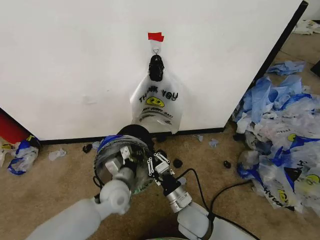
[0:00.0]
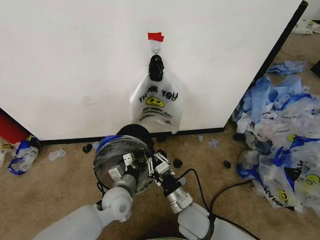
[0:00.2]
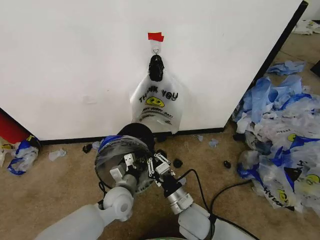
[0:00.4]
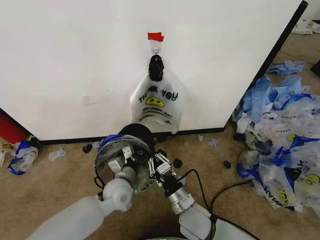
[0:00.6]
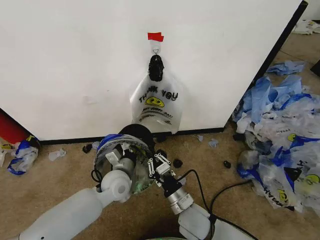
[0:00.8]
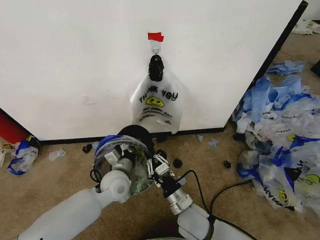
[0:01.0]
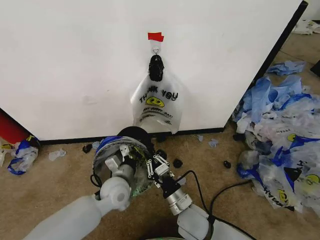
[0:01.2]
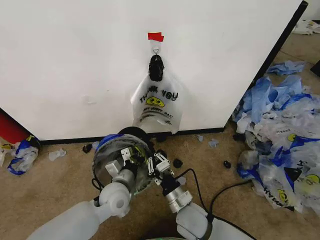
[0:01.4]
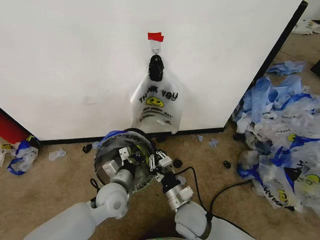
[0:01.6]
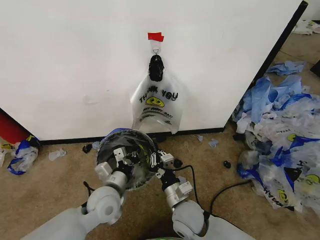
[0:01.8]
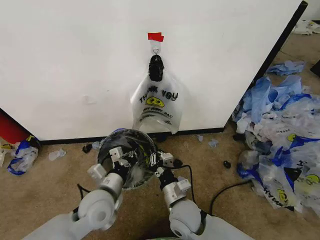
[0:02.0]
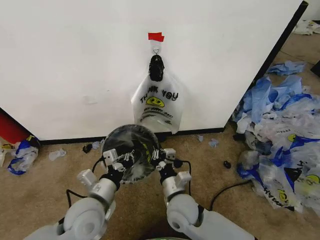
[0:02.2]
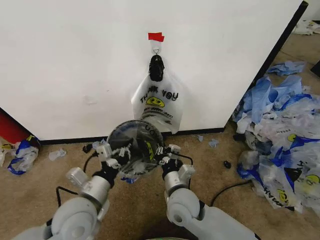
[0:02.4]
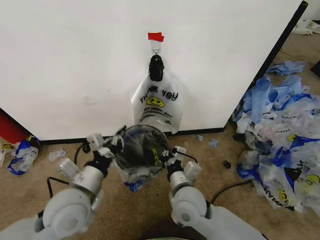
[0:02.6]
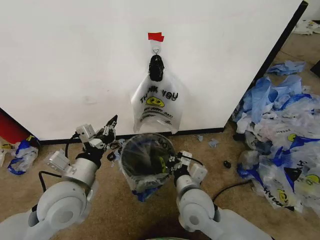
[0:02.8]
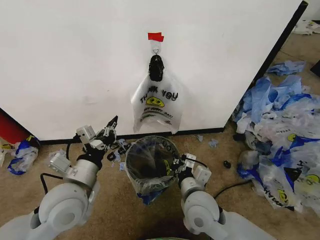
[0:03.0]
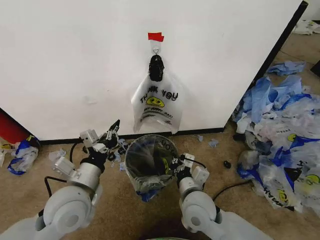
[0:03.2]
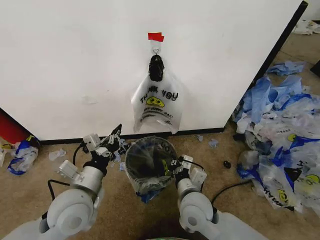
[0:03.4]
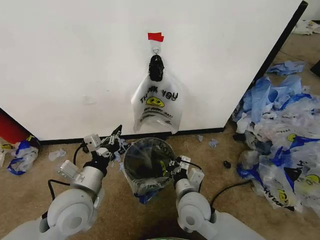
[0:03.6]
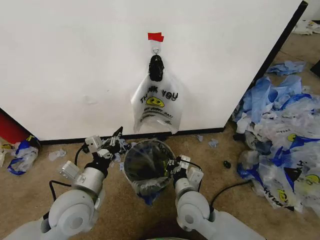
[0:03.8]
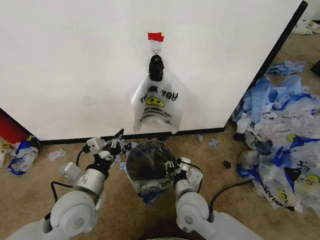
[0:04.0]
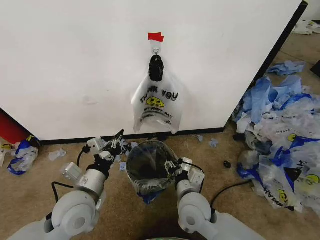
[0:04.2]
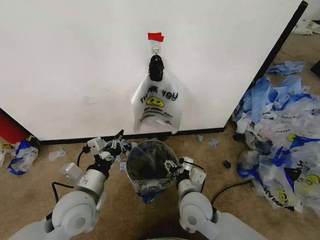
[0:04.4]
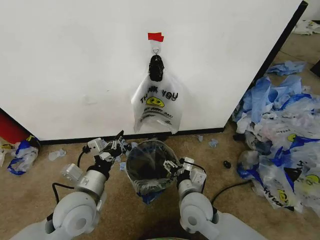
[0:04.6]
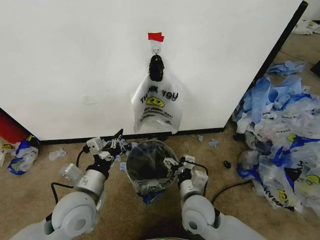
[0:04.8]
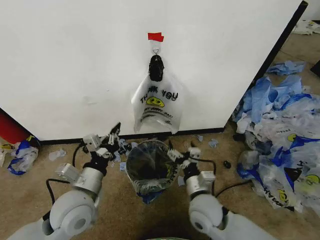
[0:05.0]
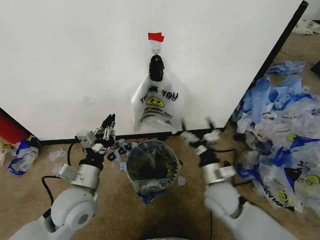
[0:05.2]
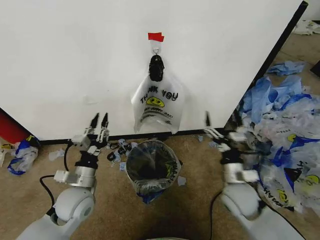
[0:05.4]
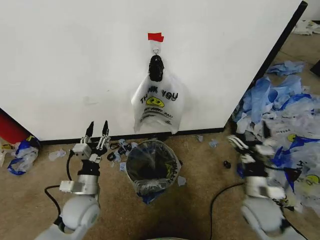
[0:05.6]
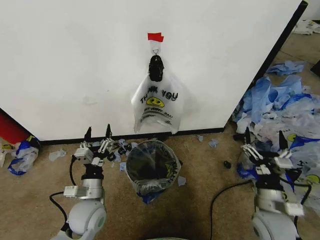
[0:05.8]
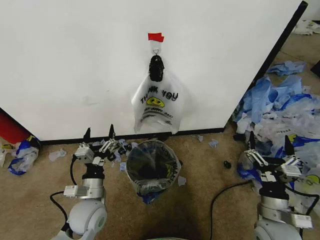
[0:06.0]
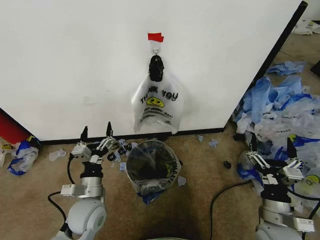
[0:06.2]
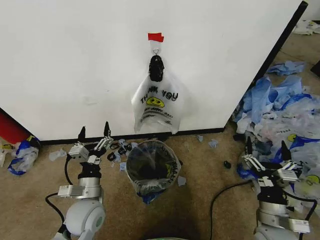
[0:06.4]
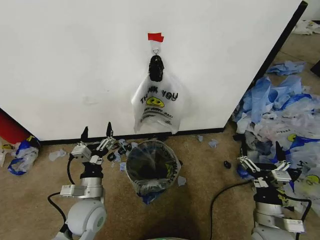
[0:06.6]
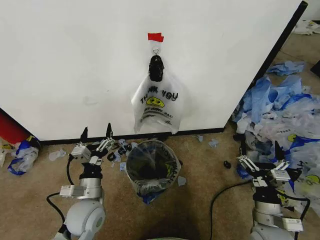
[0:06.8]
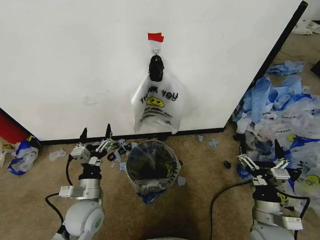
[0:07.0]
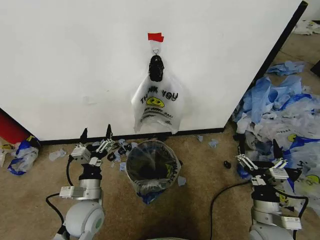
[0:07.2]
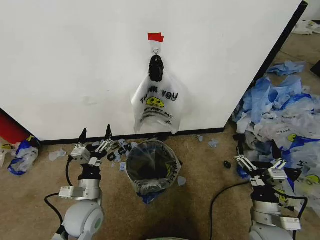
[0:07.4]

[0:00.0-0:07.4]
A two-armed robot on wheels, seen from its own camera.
Task of the whole recording: Pick up the garbage bag from the wall and place it over the trash bin.
0:00.0 to 0:01.4: There are only small adjustments of the grippers.
0:01.4 to 0:03.0: The right gripper shifts roughly 10 cm upward, while the left gripper moves upward, to the left and backward, about 15 cm.
0:03.0 to 0:04.4: The right gripper opens its fingers.
0:04.4 to 0:06.0: The left gripper heads downward, covering approximately 10 cm, and opens up. The right gripper shifts approximately 20 cm to the right.
0:06.0 to 0:07.4: The grippers make only small movements.

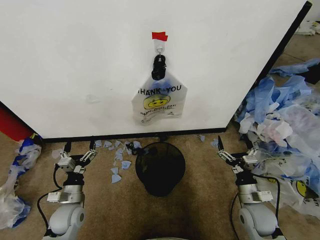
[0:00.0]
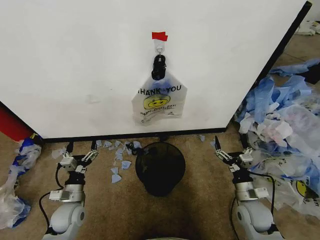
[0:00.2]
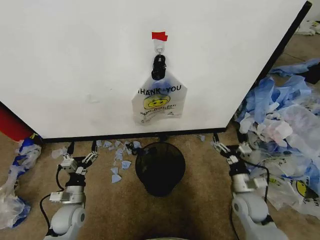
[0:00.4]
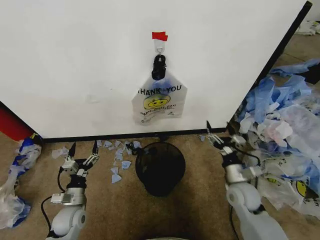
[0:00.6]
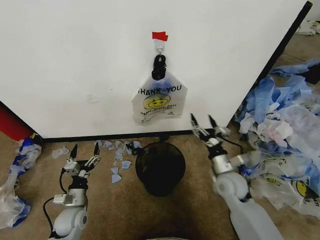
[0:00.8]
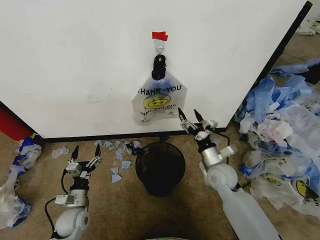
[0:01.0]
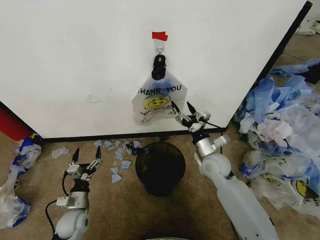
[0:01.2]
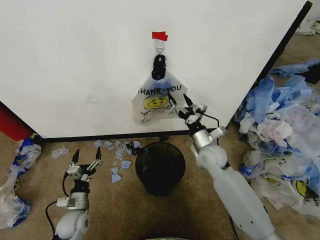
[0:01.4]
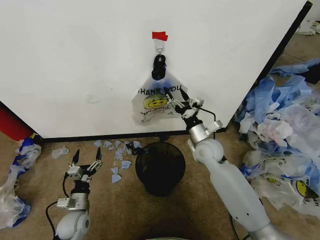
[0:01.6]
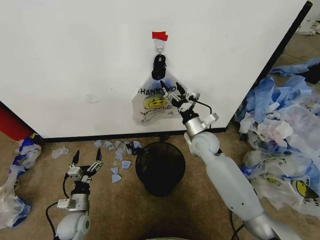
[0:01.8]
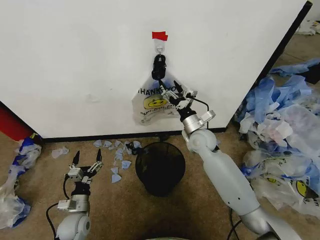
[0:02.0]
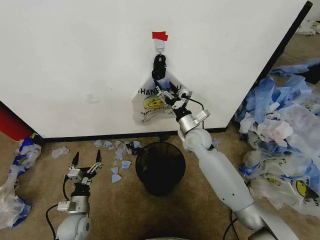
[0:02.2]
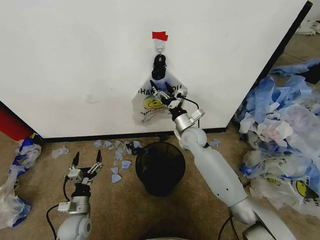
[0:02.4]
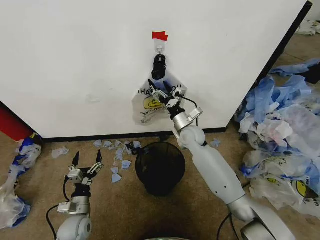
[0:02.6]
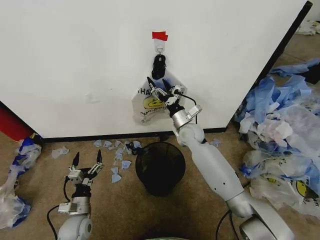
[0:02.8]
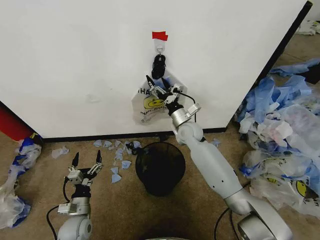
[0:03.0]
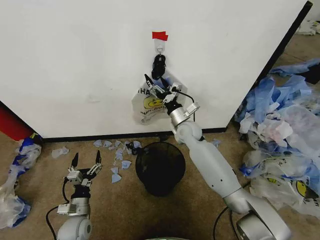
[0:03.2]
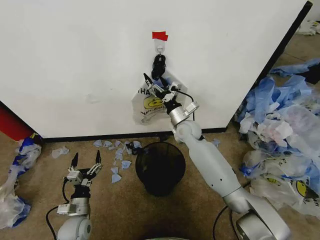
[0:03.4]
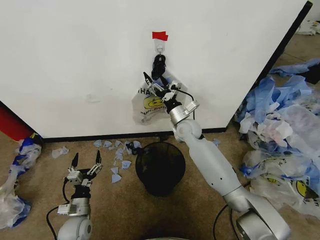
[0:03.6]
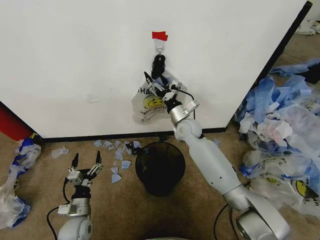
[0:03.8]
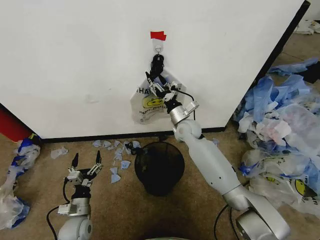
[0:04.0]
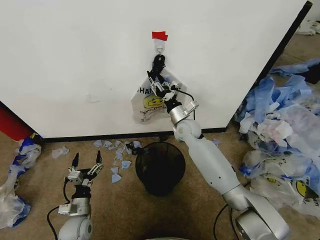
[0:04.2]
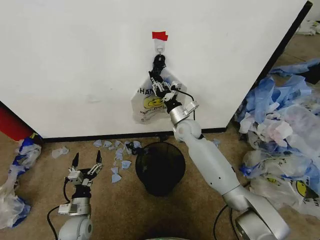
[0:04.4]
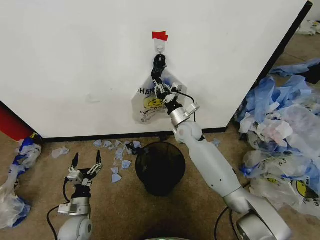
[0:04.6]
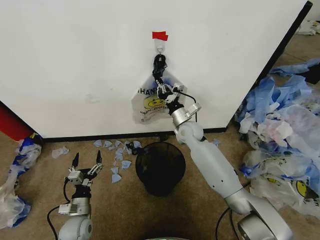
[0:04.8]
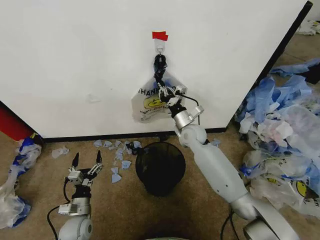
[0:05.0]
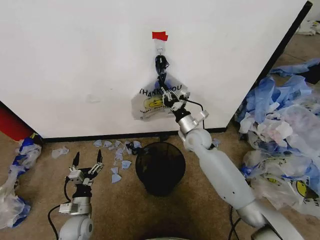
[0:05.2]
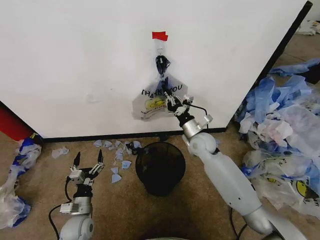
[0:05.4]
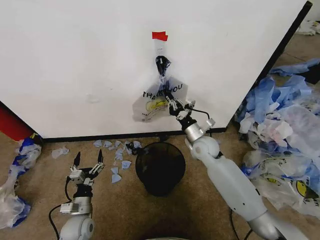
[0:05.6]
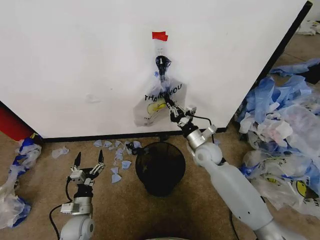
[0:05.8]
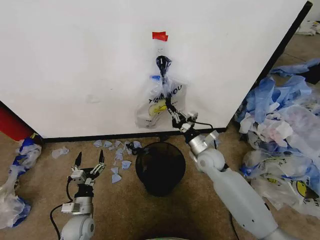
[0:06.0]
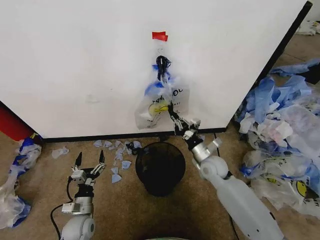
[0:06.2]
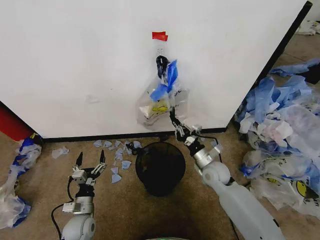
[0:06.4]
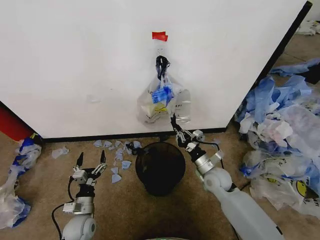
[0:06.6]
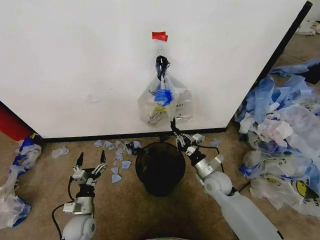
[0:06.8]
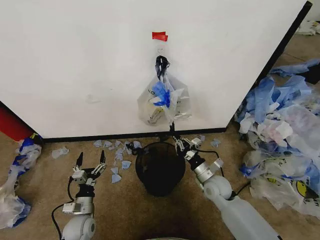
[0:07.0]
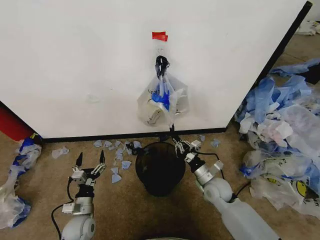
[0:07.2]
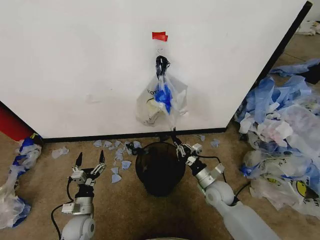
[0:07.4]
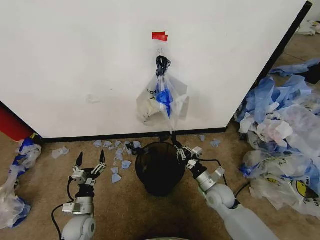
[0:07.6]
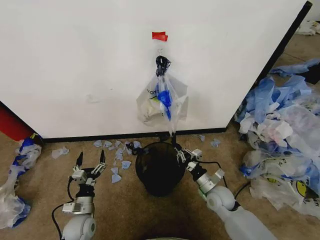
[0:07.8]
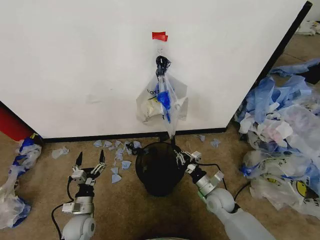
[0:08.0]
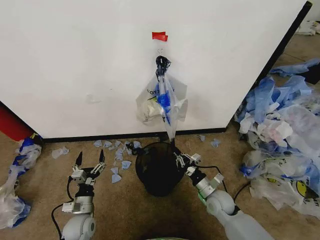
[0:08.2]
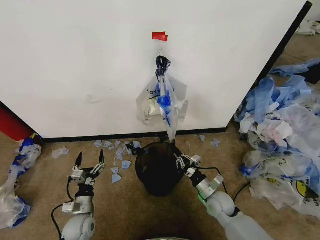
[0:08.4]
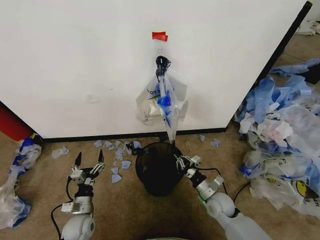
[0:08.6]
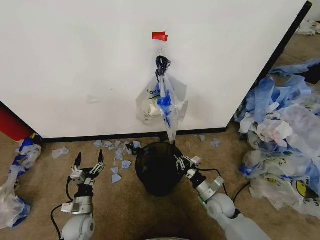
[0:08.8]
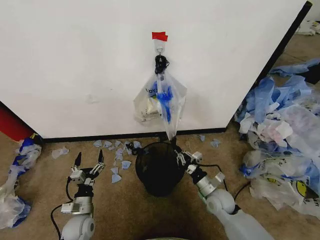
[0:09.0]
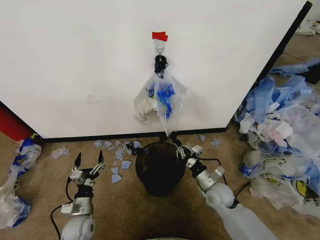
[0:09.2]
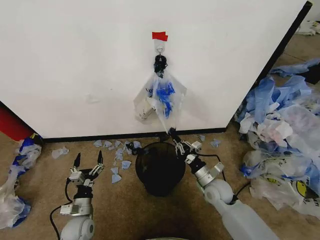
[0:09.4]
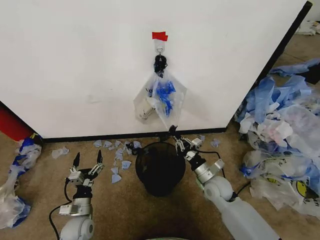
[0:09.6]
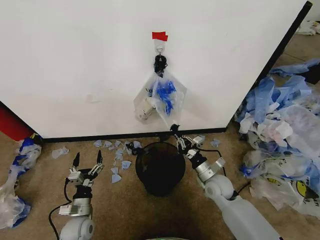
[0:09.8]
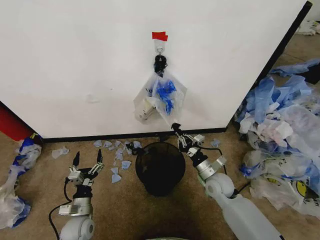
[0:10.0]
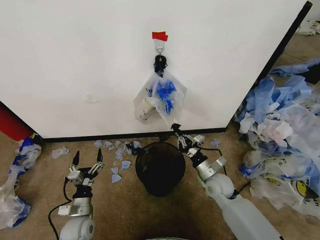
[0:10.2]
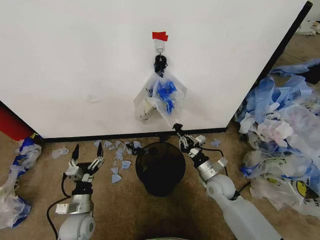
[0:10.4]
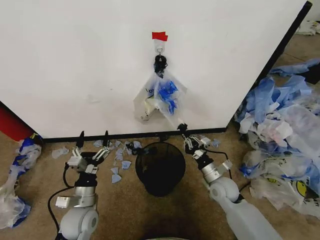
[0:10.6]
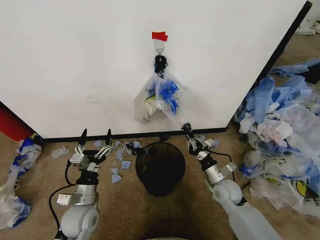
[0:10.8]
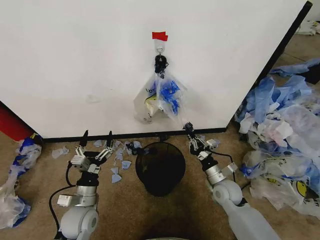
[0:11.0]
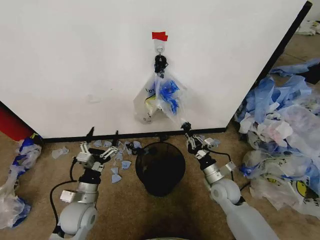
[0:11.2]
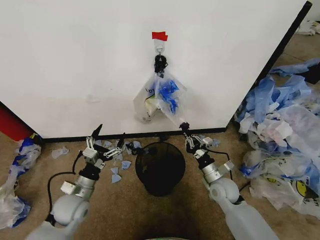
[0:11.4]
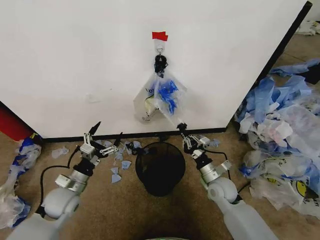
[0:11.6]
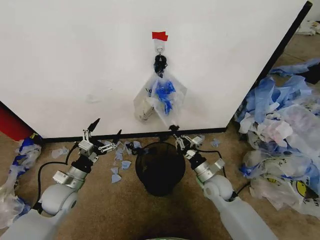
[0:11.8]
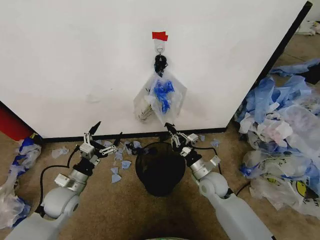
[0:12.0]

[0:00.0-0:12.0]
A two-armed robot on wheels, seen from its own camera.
Task of the whole recording: Pick up the garbage bag from the wall and place it over the trash bin.
0:01.6 to 0:03.0: The right gripper goes about 10 cm forward and to the left.
0:03.0 to 0:04.4: The right gripper closes.
0:04.4 to 0:06.0: The right gripper is displaced backward, to the right and downward by some 15 cm.
0:06.0 to 0:07.6: The right gripper travels downward and backward by some 15 cm.
0:07.6 to 0:09.0: The grippers stay close to where they were, moving slightly.
0:09.0 to 0:10.4: Both grippers travel together upward, approximately 5 cm.
0:10.4 to 0:12.0: The left gripper goes some 10 cm upward and forward.

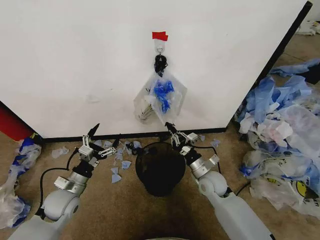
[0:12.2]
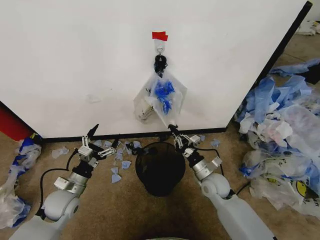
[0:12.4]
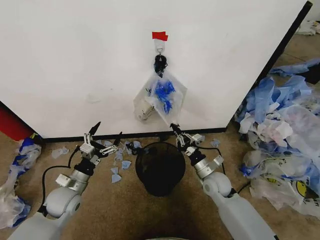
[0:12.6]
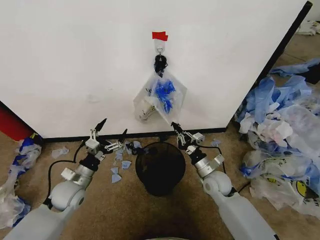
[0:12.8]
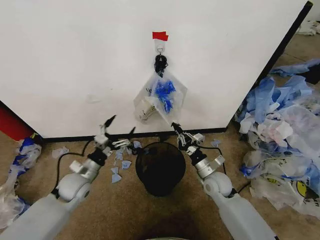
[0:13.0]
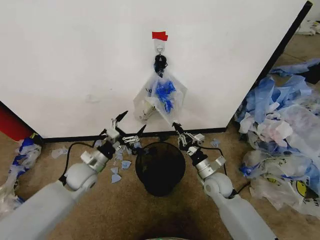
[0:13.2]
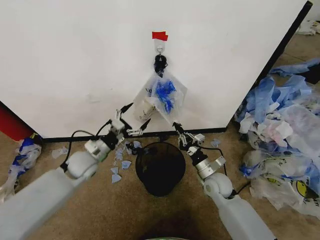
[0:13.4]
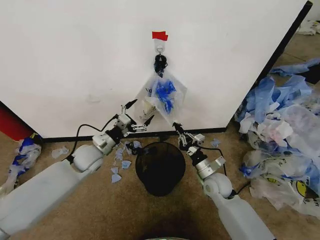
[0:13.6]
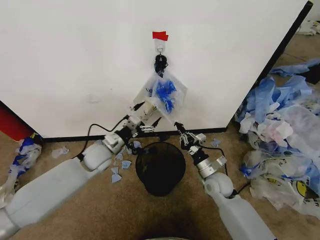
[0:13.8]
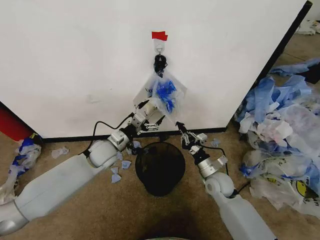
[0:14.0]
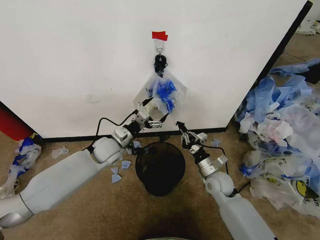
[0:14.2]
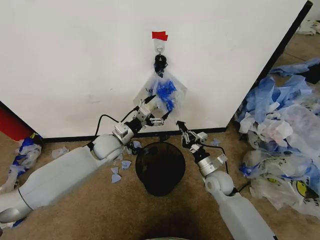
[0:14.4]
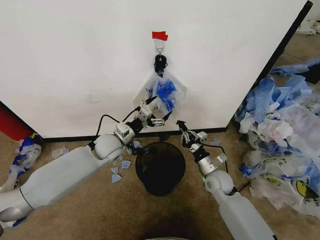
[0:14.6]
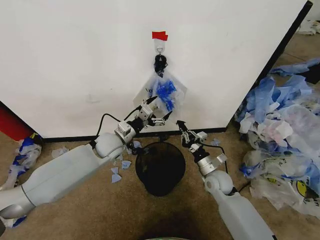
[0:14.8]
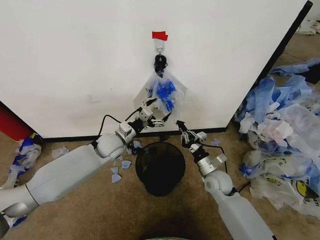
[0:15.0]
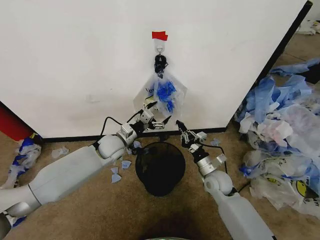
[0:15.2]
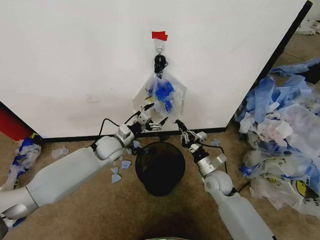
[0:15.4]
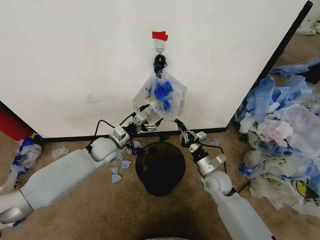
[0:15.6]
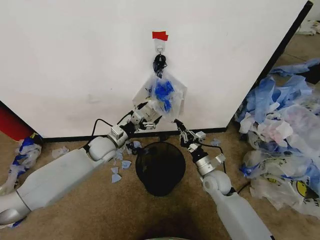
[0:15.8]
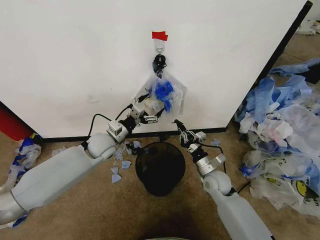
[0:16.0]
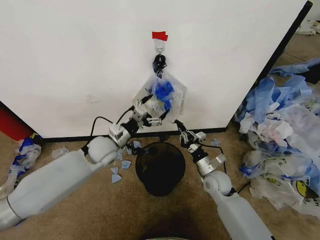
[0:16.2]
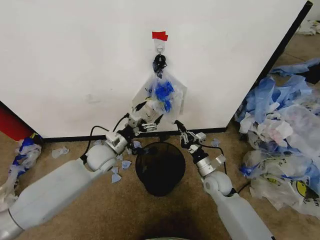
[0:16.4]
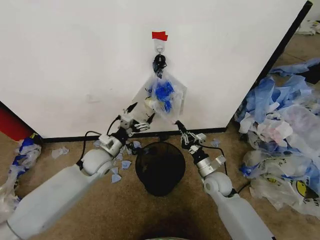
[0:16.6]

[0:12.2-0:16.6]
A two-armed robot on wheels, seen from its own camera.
Task of the whole recording: Pick up the garbage bag from the wall and place it over the trash bin.
0:12.2 to 0:13.6: The left gripper travels forward, upward and to the right by roughly 15 cm.
0:13.6 to 0:15.2: The left gripper moves to the right, approximately 5 cm.
0:15.2 to 0:16.6: The left gripper heads backward, covering approximately 5 cm.
